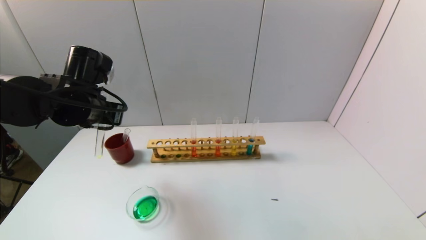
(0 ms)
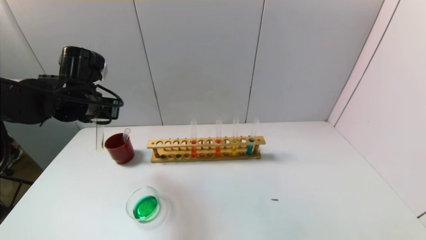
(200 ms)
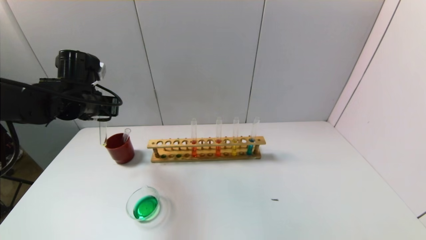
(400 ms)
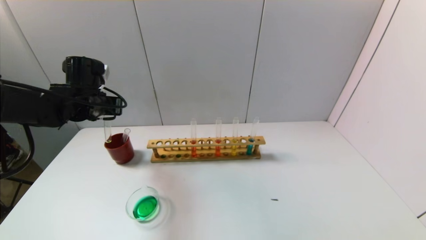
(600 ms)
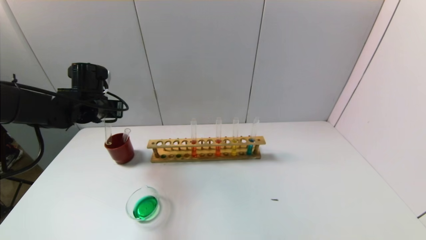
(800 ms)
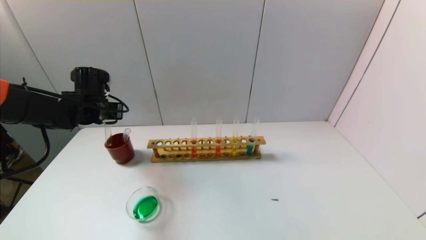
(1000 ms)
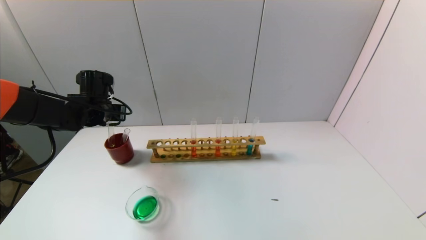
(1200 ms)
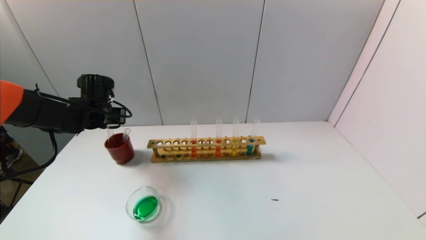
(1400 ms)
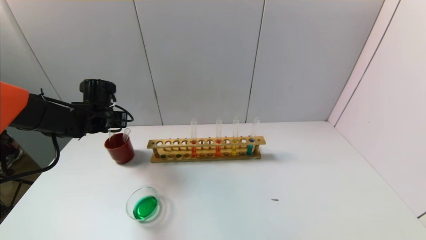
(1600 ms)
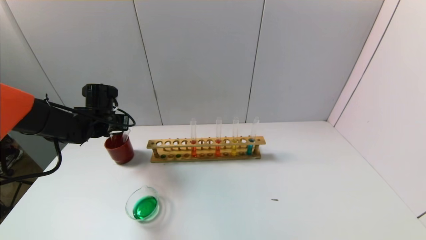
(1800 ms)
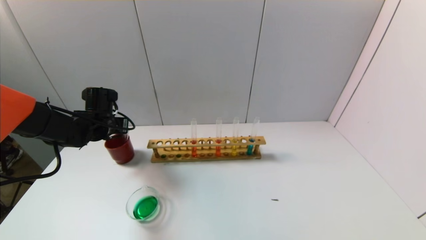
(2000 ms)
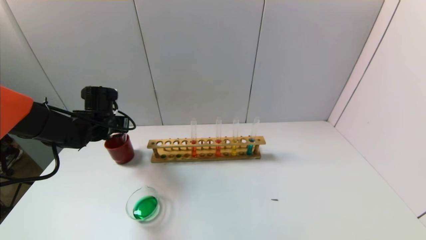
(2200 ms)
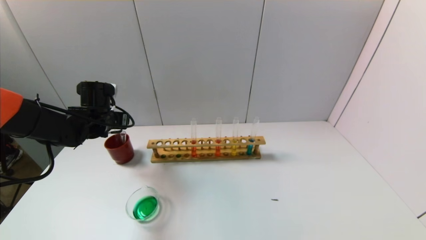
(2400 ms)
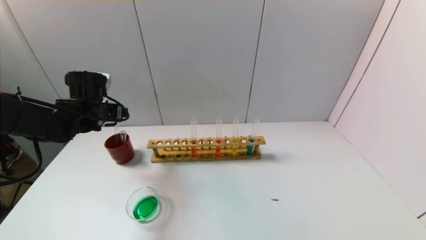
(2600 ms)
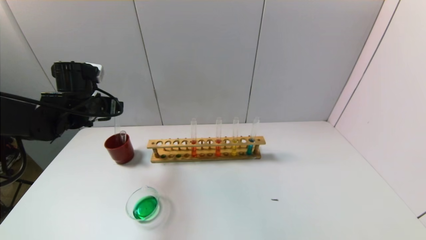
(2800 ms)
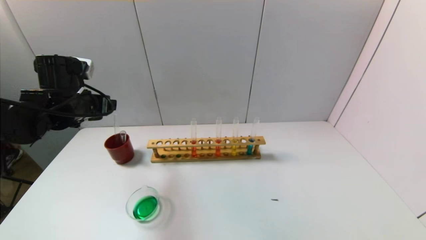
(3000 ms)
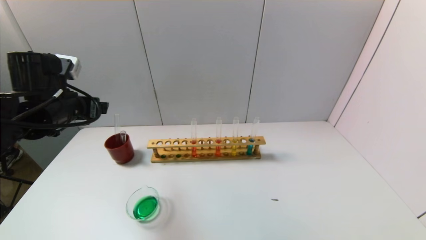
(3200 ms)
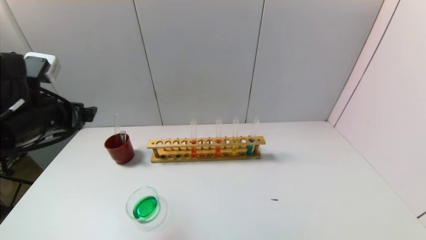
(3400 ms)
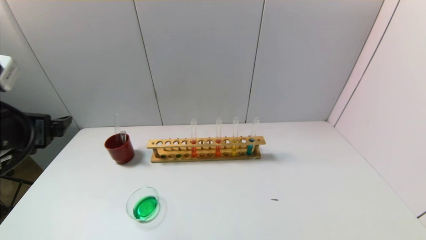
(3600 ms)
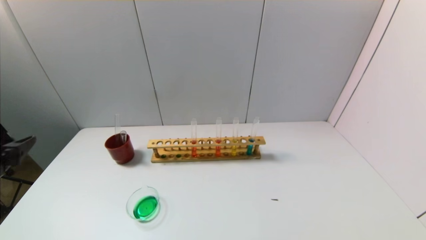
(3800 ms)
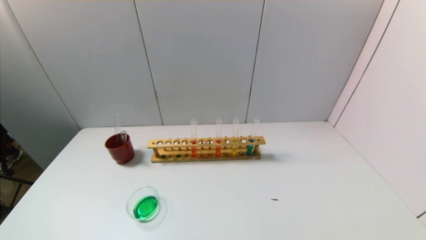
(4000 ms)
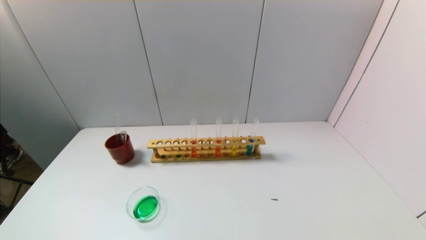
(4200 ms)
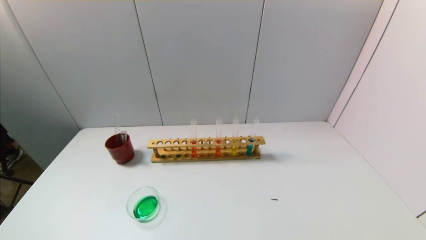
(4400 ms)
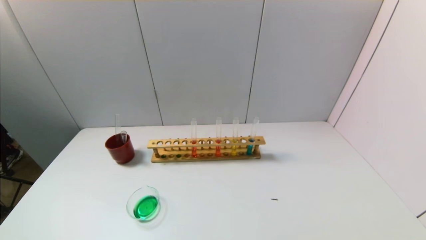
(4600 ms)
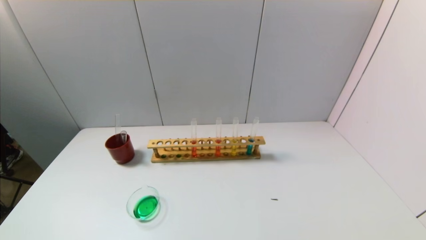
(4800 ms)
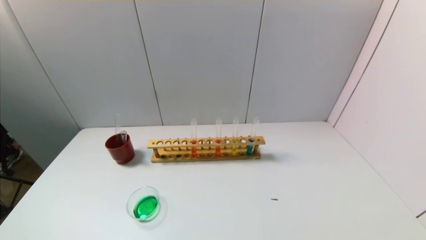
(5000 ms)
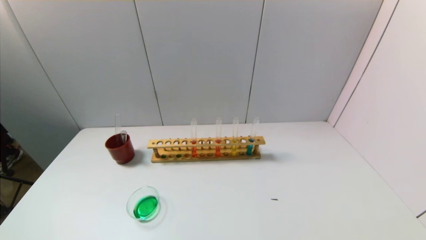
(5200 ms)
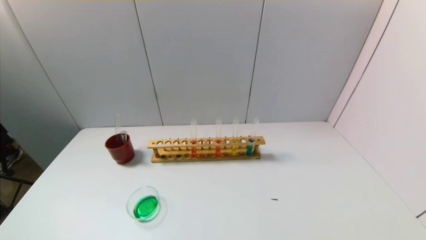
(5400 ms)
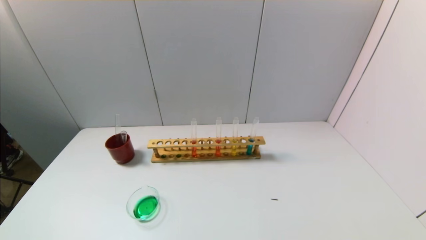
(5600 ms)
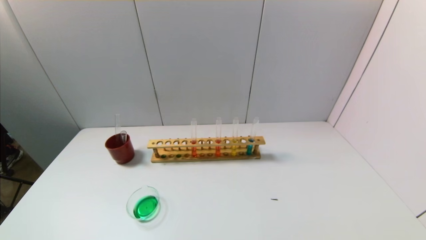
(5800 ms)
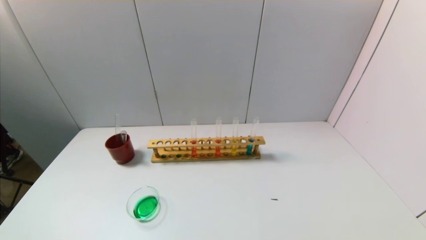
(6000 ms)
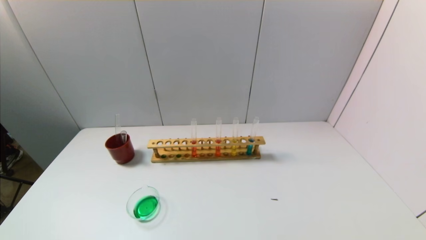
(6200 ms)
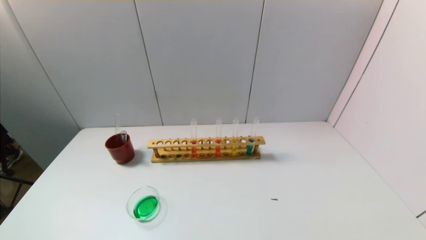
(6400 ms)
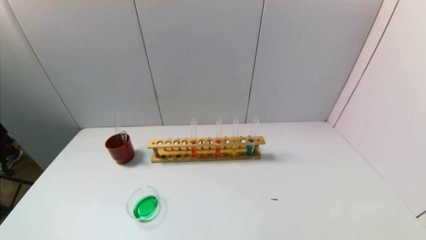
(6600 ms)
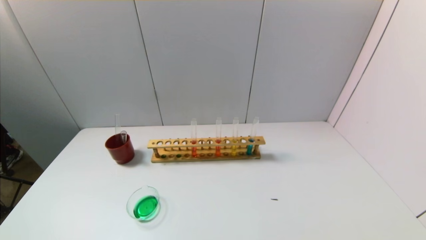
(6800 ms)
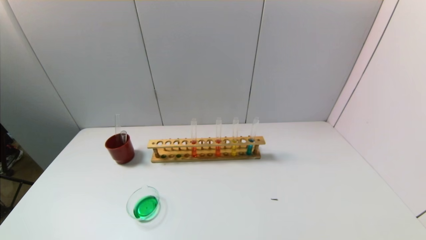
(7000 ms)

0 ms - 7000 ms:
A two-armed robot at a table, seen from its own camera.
Task of the whole recording: pick up the test tube with yellow pigment and the test tube with blue pigment by grippers and pour them into the beaker.
Step, 0 ms - 2400 ms: Place the test tube into the brown cup with the left gripper.
0 ms - 1400 ms: The left gripper heads forward, downward and to the left, covering about 15 cm.
1400 ms - 2800 ms: The left gripper changes place by roughly 5 cm, and opens.
2800 ms - 4200 ms: The left gripper moves backward, some 35 cm.
5600 ms - 7000 ms: Both grippers stay about where they are.
